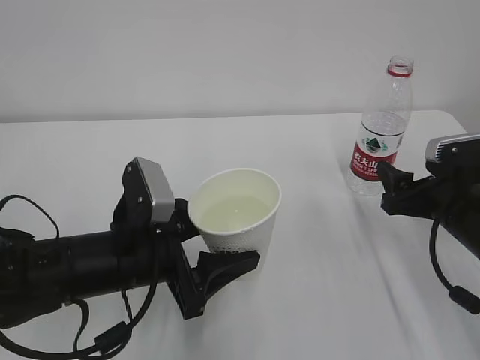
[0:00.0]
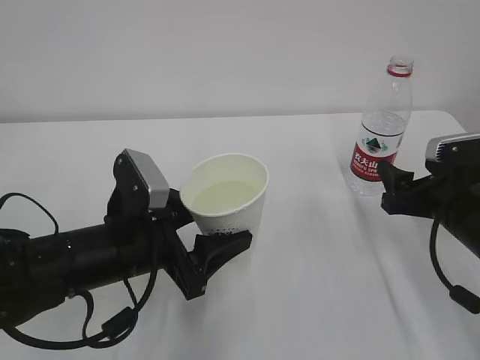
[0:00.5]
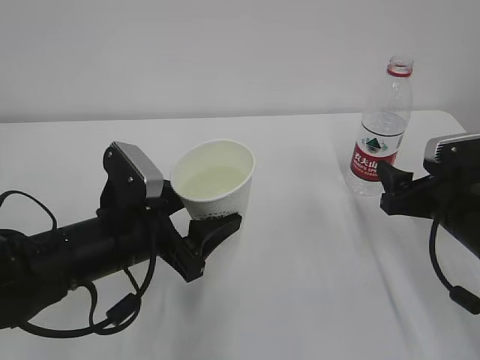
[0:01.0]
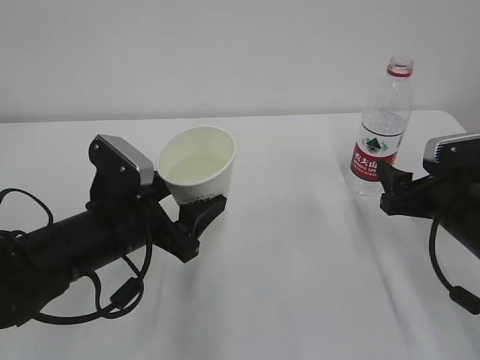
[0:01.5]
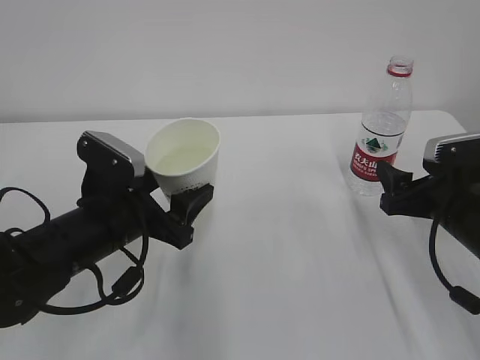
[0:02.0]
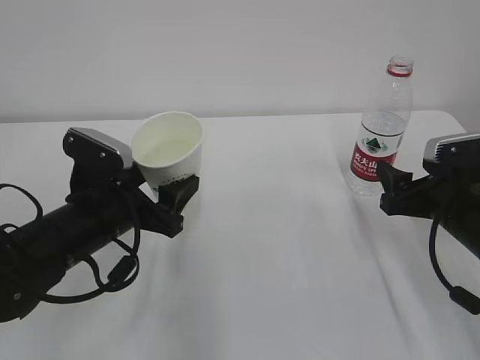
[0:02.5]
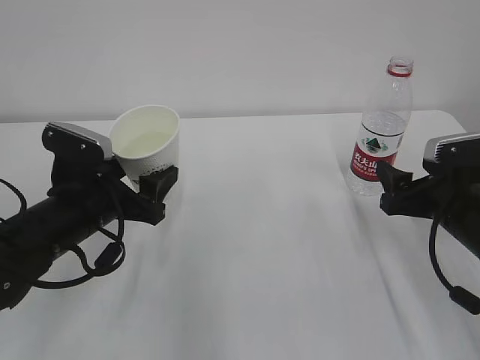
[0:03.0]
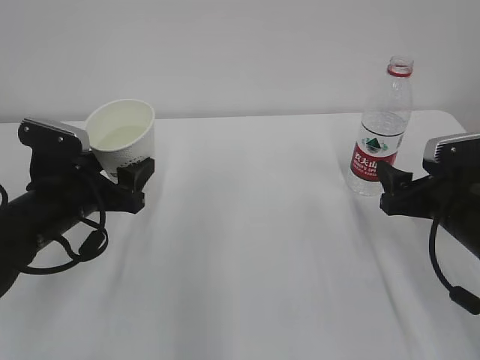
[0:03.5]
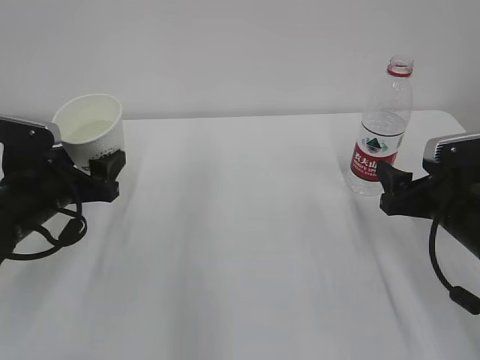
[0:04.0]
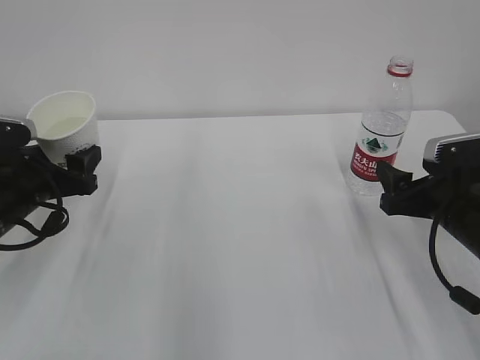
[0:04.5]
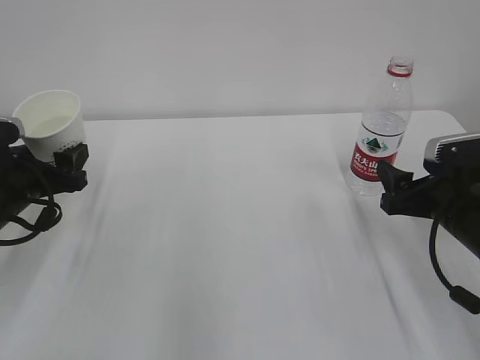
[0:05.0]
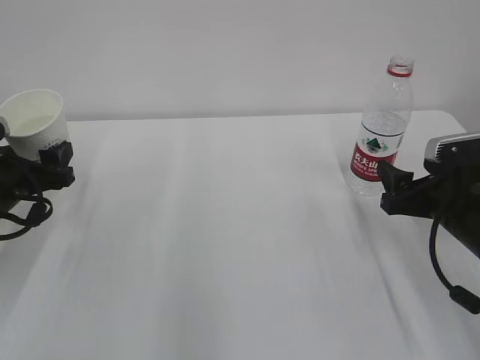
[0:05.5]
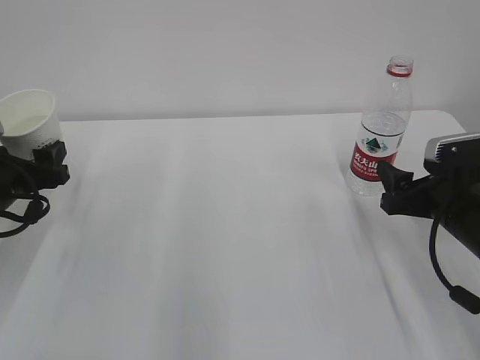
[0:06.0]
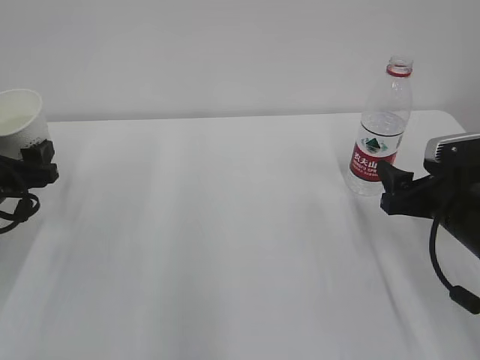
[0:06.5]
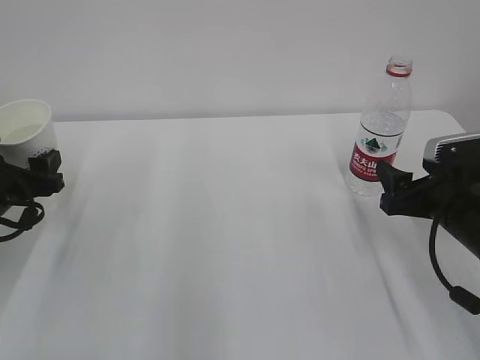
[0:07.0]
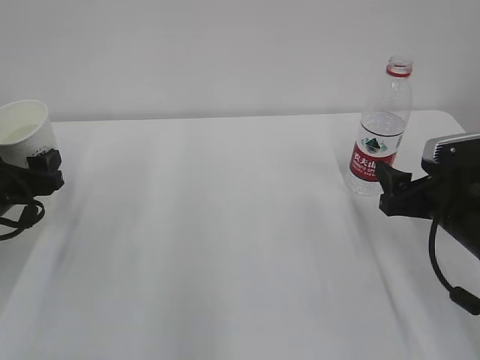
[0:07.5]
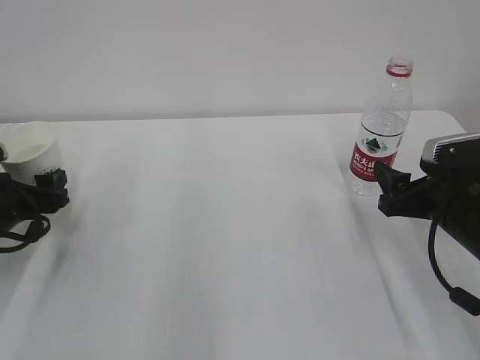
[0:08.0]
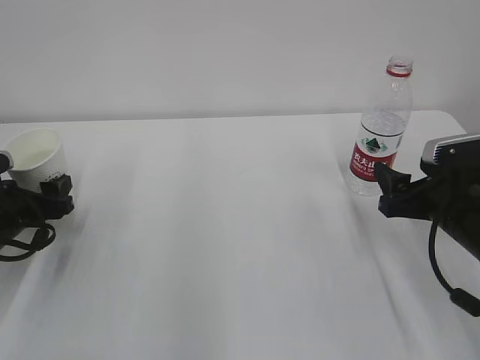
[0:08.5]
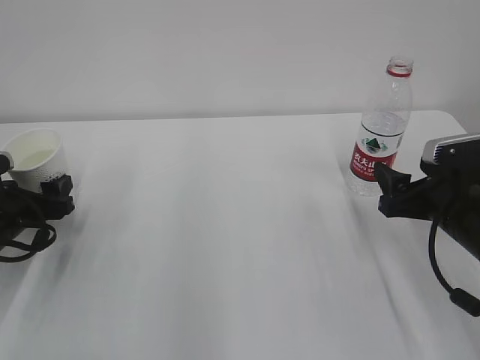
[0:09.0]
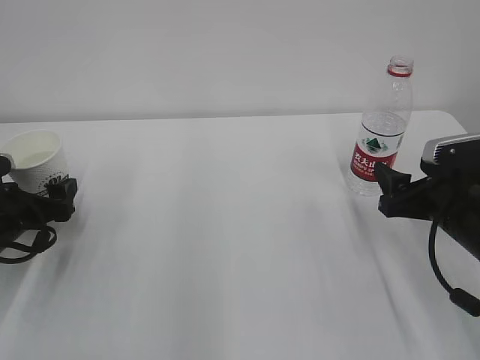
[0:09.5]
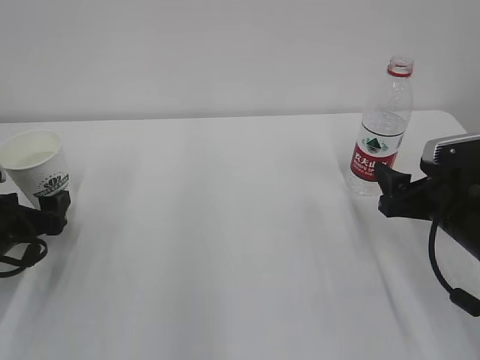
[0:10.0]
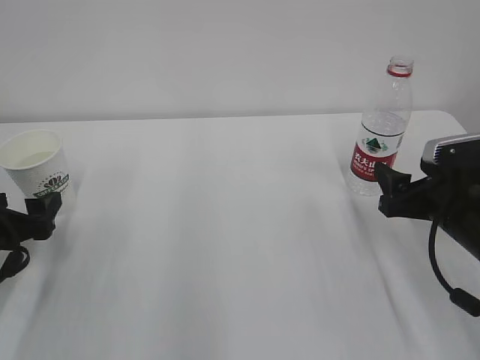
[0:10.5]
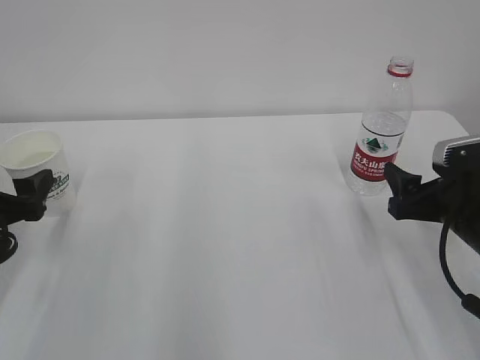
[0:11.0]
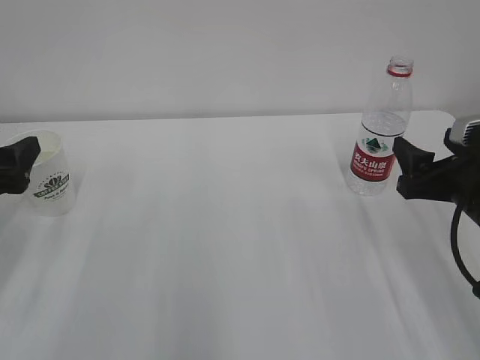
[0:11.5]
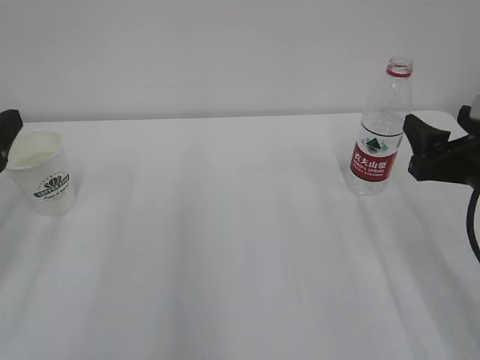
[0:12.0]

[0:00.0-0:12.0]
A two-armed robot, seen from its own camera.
0:02.0 to 0:04.0: The left gripper goes roughly 10 cm to the left.
0:04.0 to 0:06.0: The left gripper moves to the left, approximately 5 cm.
0:06.0 to 0:08.0: There are only small adjustments of the grippers.
0:08.0 to 0:10.0: The left gripper opens its fingers.
0:10.0 to 0:12.0: The left gripper travels upward by approximately 15 cm; the right gripper is displaced upward by about 5 cm.

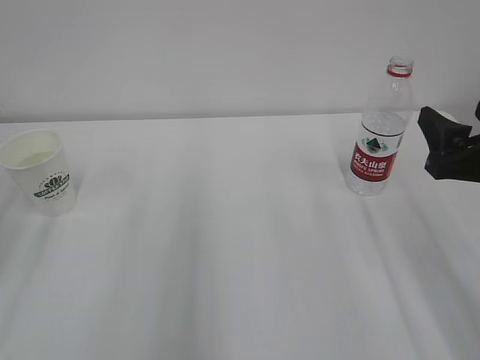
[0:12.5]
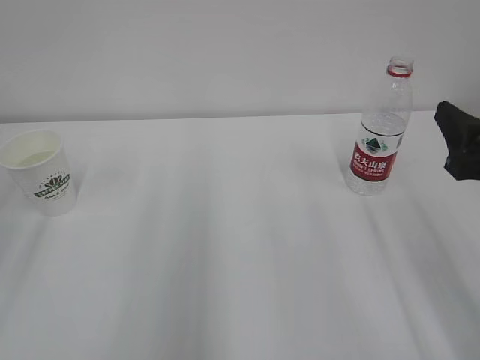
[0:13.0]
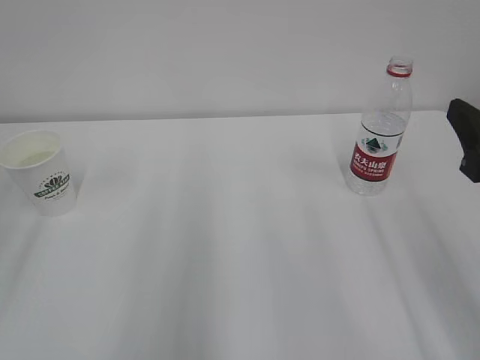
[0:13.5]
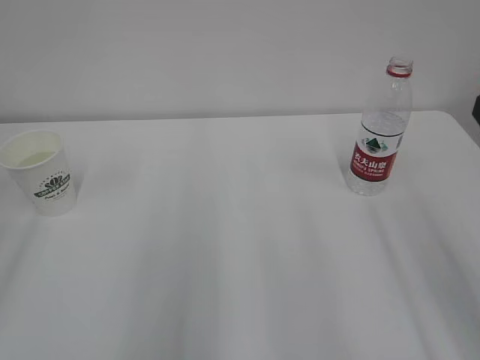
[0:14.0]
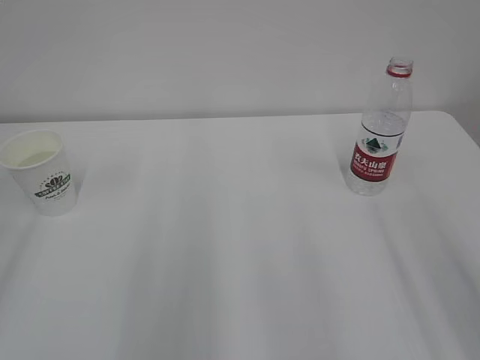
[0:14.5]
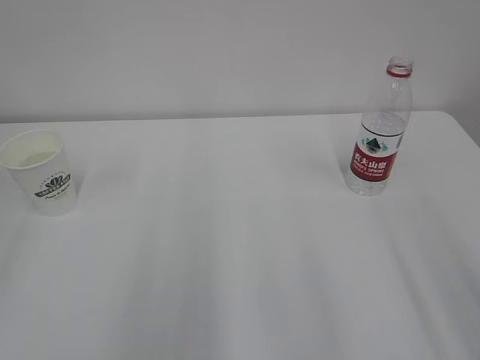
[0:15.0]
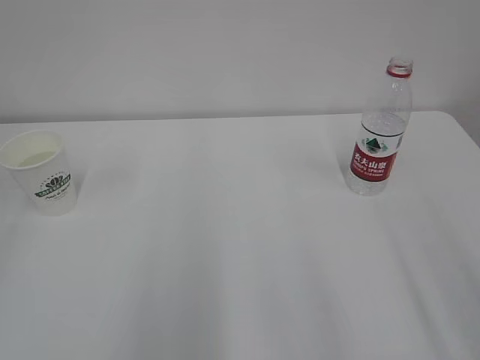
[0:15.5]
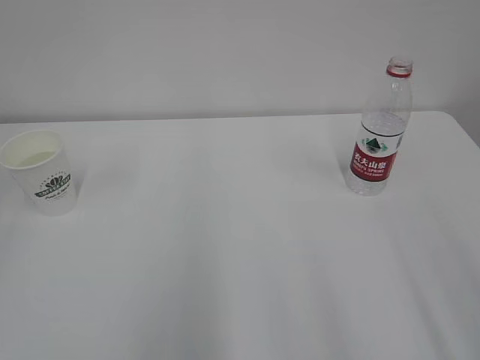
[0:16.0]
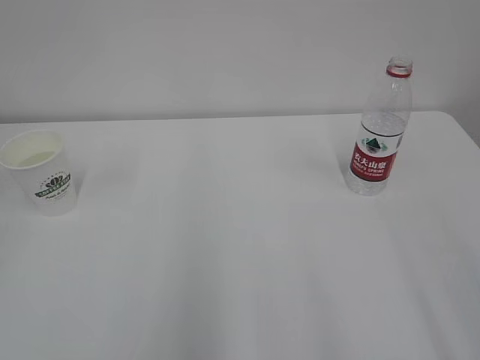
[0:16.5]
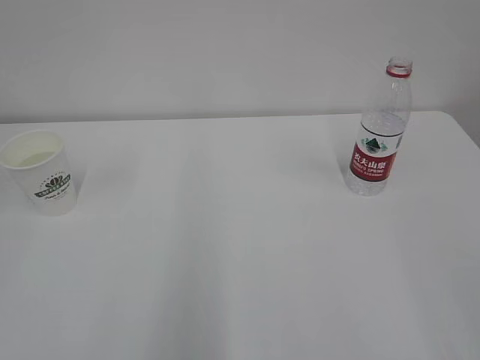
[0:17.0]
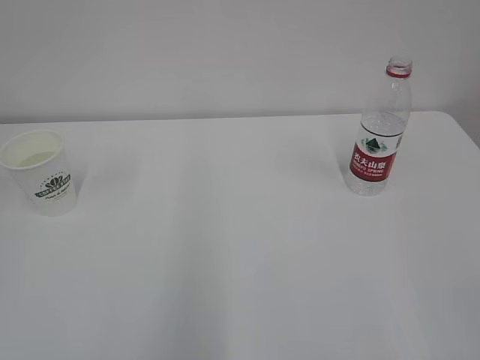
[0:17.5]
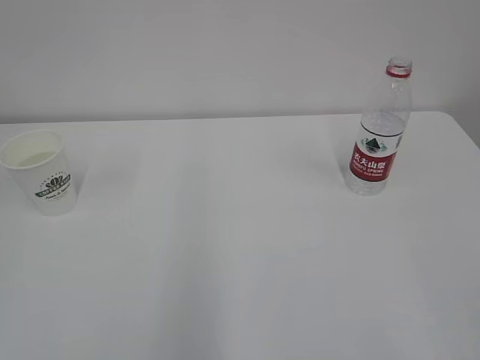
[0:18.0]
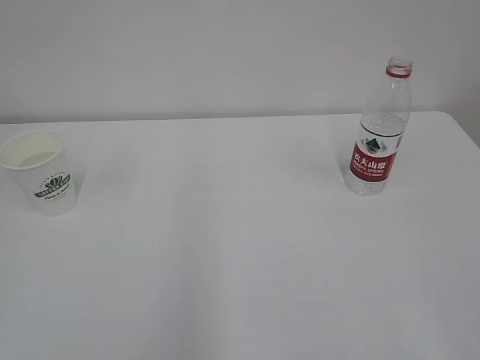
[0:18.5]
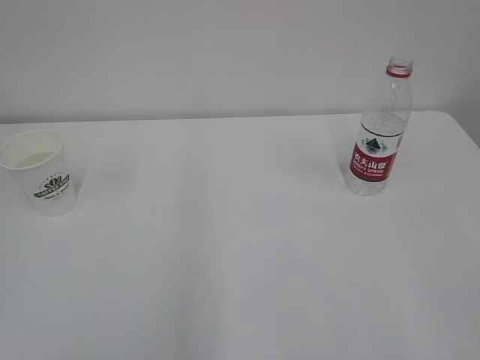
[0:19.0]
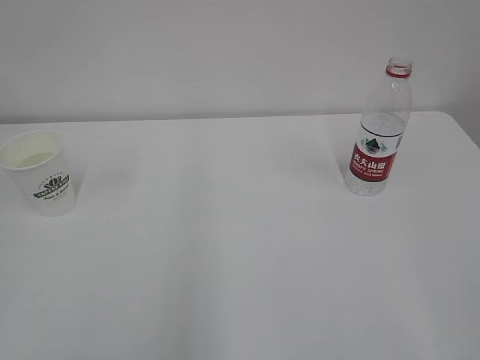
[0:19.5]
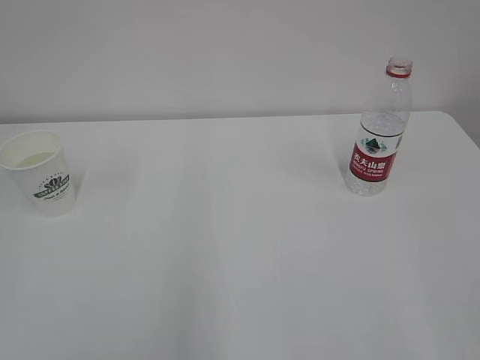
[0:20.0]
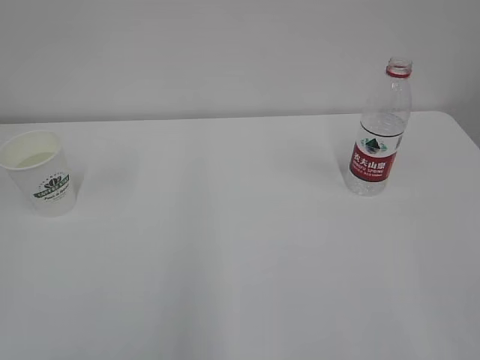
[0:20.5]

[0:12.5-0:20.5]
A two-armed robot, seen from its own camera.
0:12.5 to 0:14.5: The right gripper travels backward and upward by approximately 15 cm.

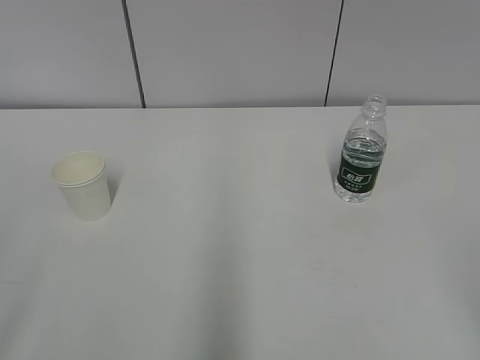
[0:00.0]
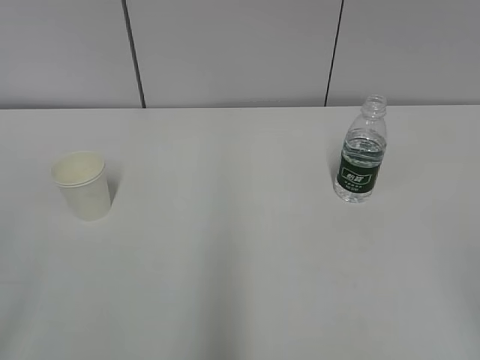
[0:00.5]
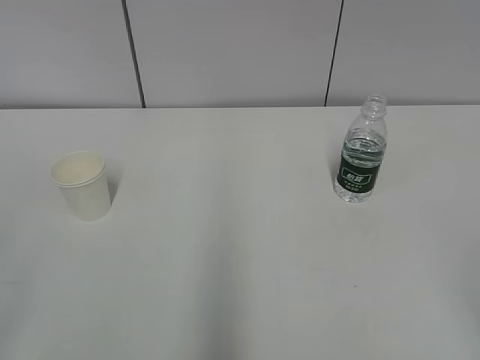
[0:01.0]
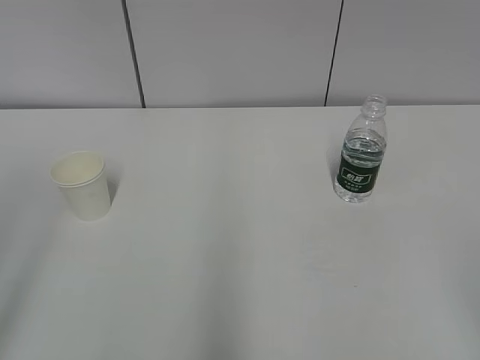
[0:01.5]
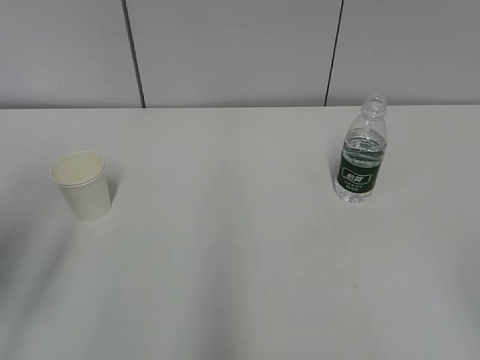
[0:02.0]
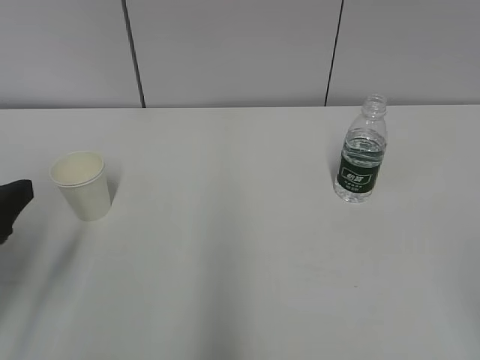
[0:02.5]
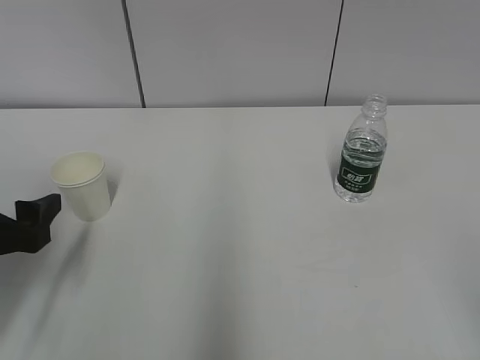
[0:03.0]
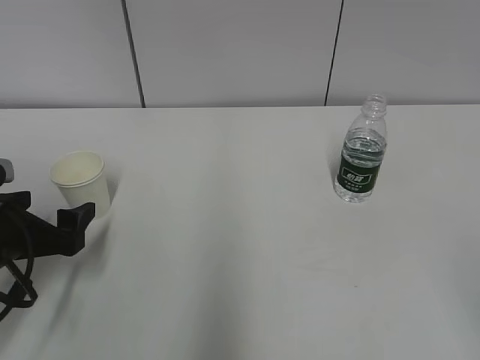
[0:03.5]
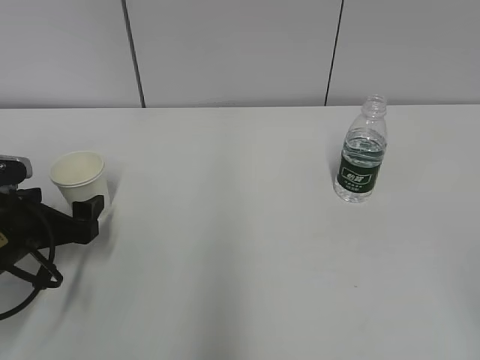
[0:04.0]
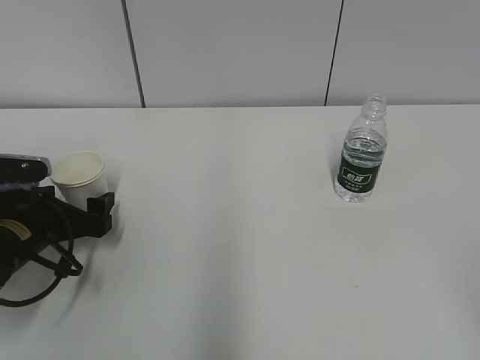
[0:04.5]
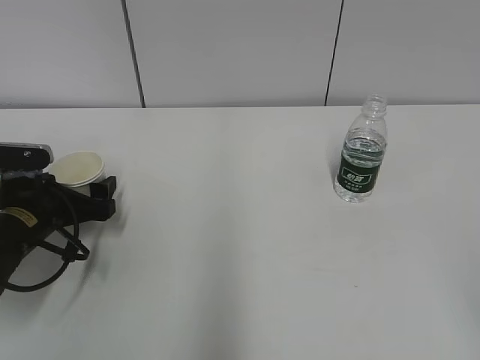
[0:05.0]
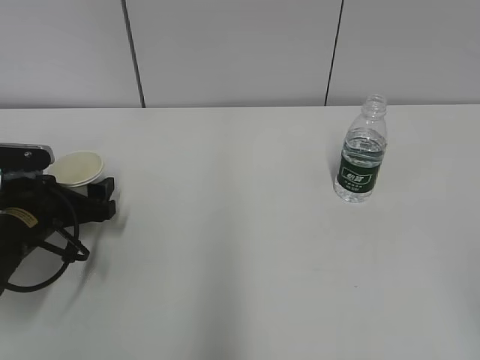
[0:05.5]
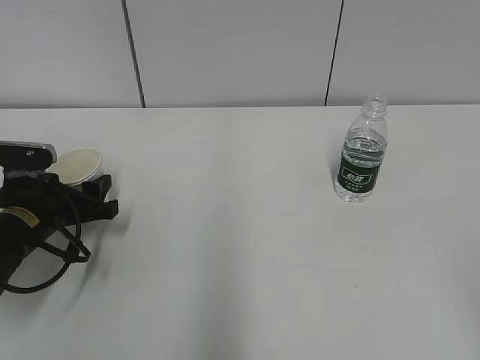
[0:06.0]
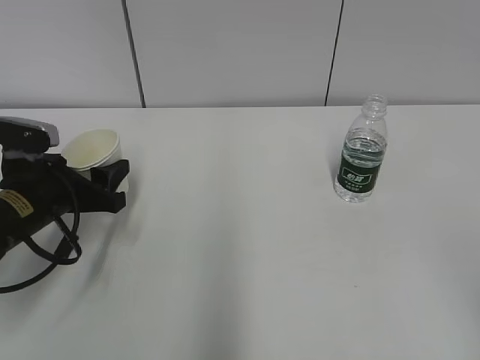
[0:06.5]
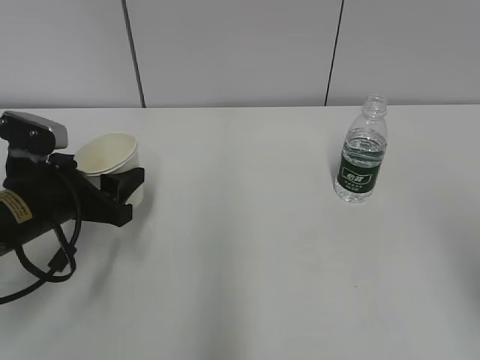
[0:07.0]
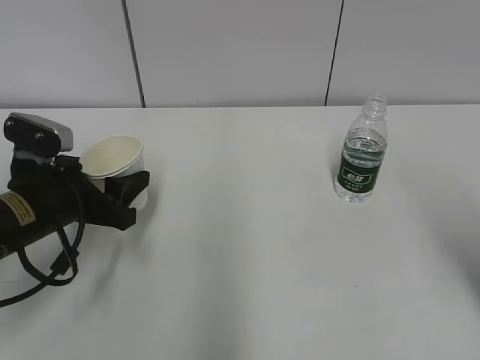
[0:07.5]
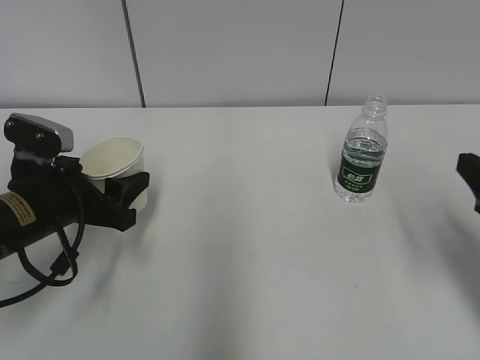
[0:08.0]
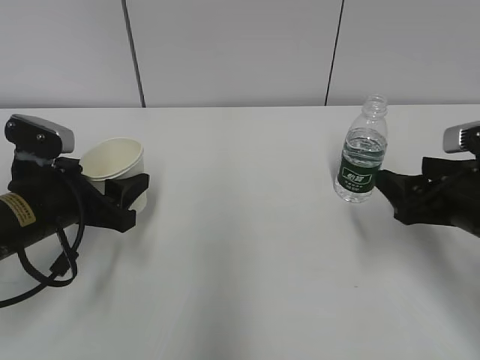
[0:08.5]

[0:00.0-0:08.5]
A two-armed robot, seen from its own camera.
Step, 0:00.0 to 0:04.5: Grab the paper cup with the left hand.
0:02.0 to 0:04.0: The left gripper shifts approximately 20 cm downward and forward, and opens its fingers.
0:04.0 to 0:06.5: The left gripper closes up.
0:06.5 to 0:08.5: The right gripper is displaced forward and downward by approximately 30 cm.
